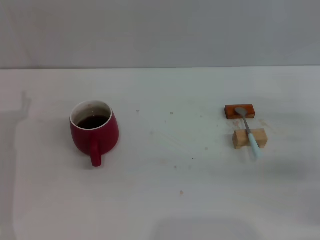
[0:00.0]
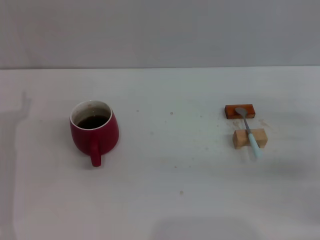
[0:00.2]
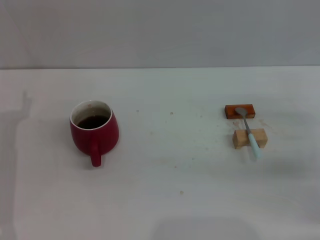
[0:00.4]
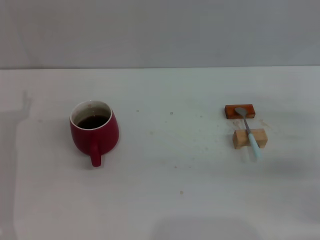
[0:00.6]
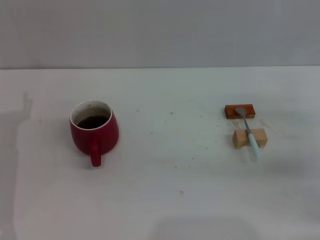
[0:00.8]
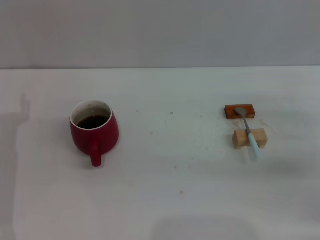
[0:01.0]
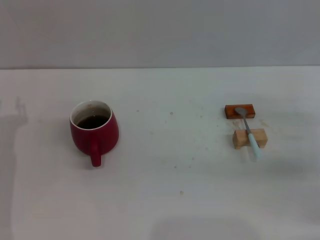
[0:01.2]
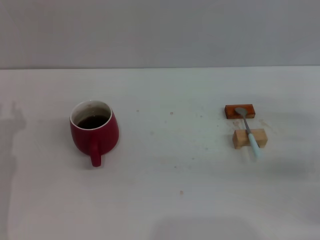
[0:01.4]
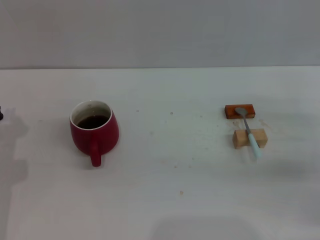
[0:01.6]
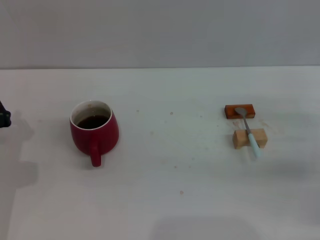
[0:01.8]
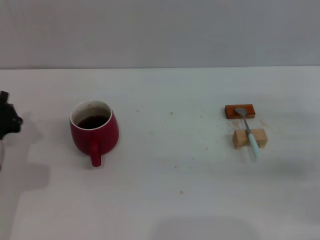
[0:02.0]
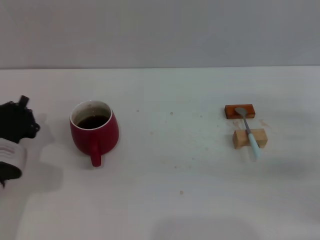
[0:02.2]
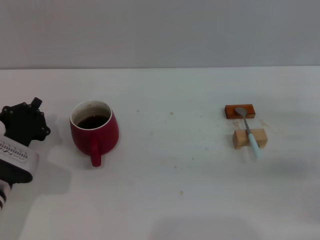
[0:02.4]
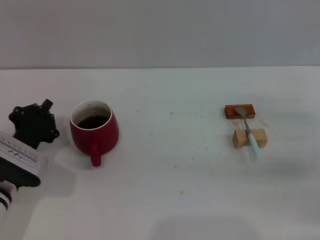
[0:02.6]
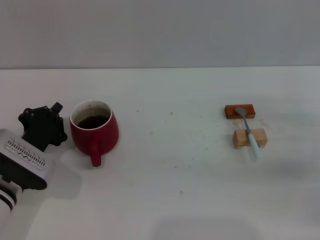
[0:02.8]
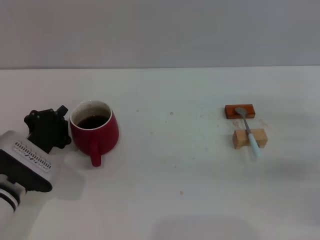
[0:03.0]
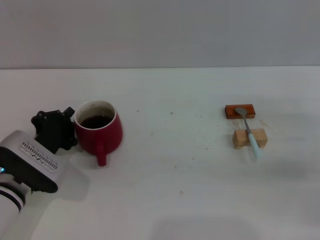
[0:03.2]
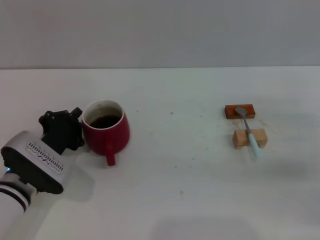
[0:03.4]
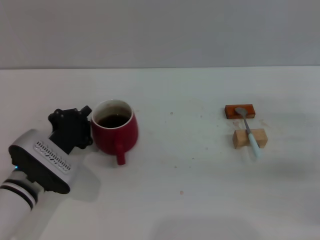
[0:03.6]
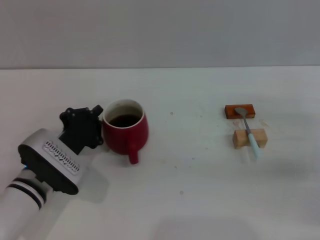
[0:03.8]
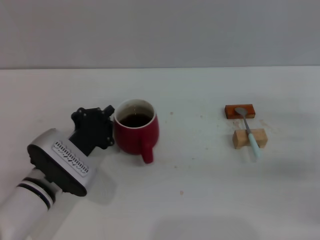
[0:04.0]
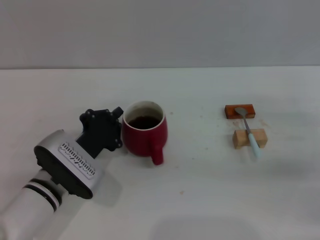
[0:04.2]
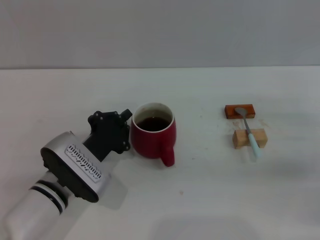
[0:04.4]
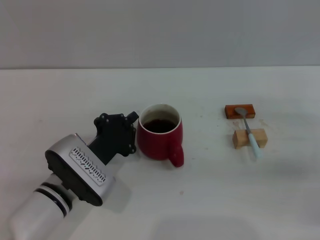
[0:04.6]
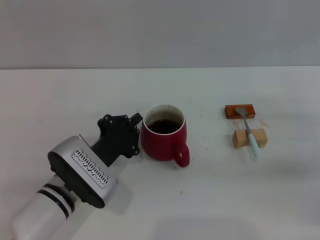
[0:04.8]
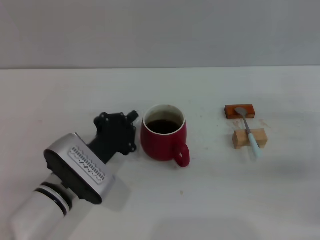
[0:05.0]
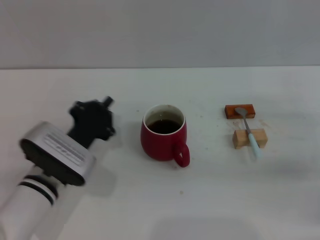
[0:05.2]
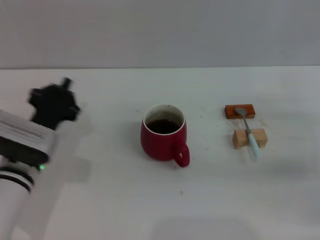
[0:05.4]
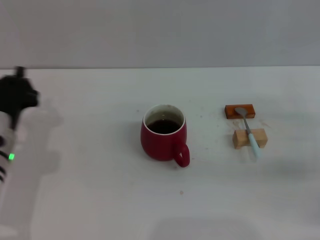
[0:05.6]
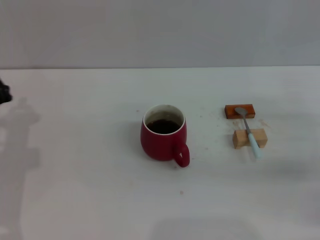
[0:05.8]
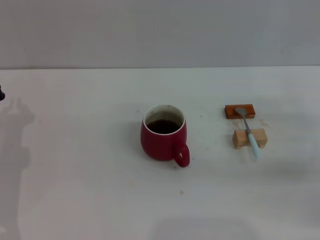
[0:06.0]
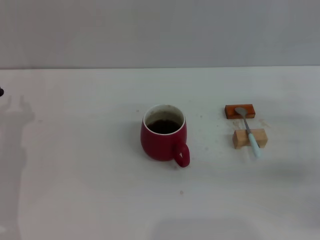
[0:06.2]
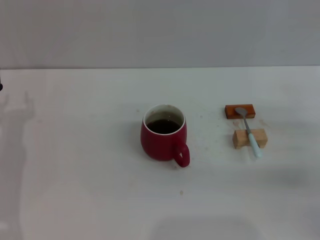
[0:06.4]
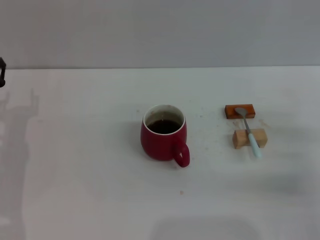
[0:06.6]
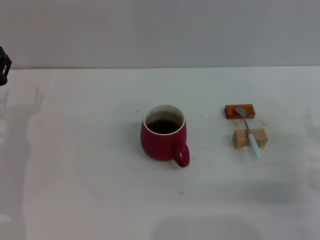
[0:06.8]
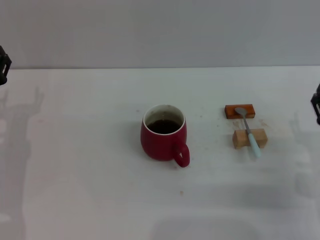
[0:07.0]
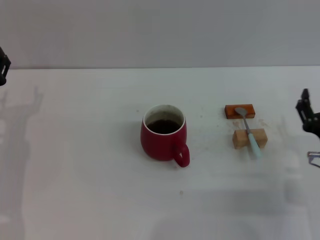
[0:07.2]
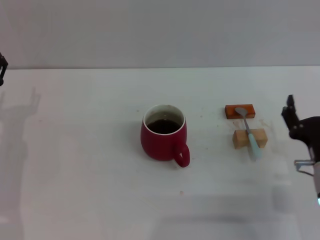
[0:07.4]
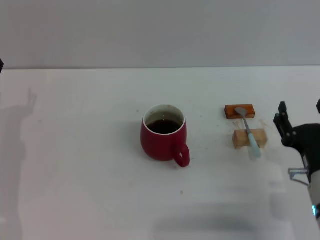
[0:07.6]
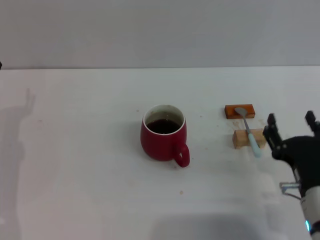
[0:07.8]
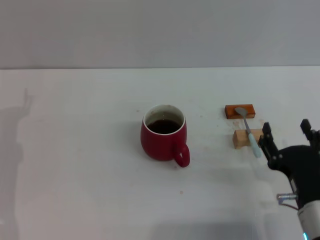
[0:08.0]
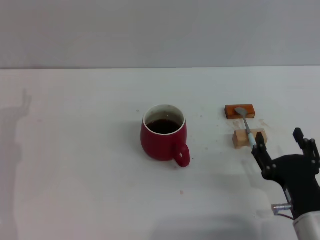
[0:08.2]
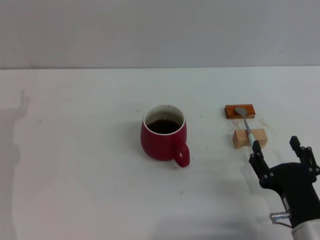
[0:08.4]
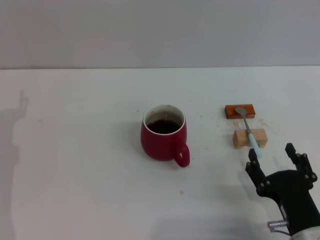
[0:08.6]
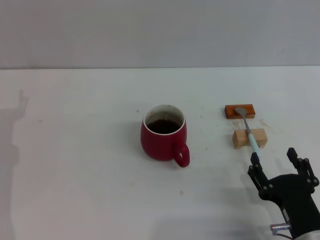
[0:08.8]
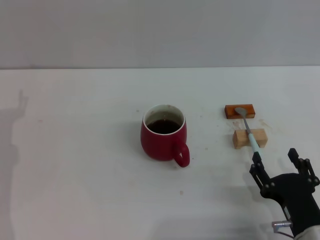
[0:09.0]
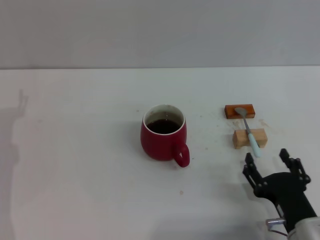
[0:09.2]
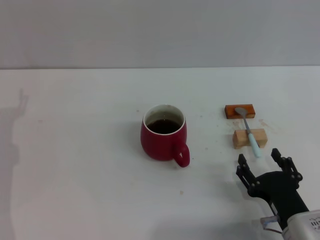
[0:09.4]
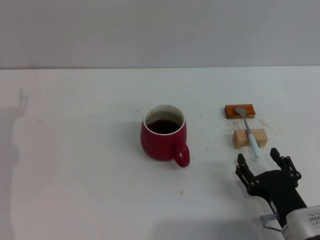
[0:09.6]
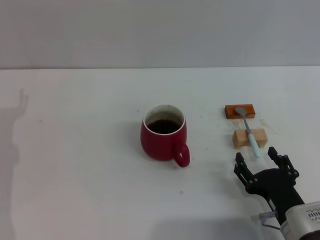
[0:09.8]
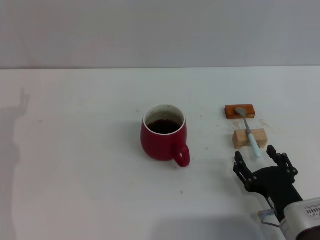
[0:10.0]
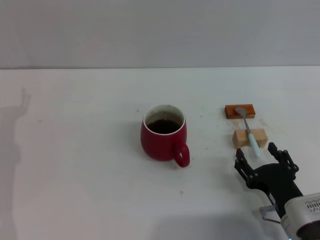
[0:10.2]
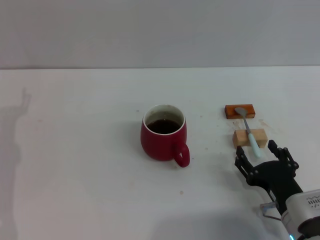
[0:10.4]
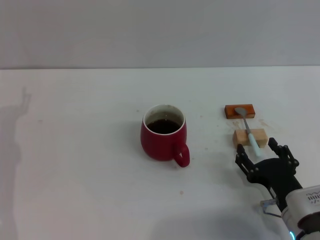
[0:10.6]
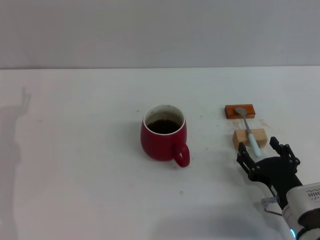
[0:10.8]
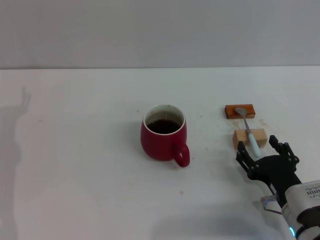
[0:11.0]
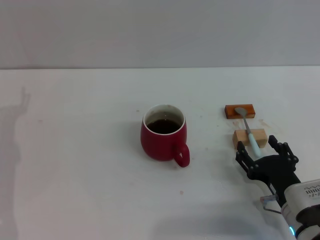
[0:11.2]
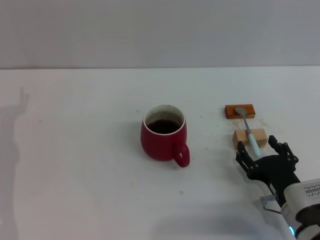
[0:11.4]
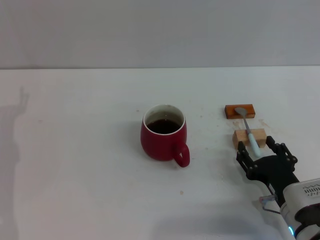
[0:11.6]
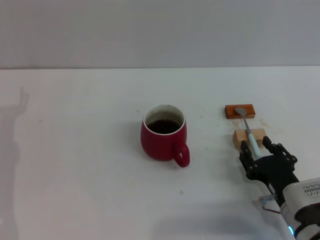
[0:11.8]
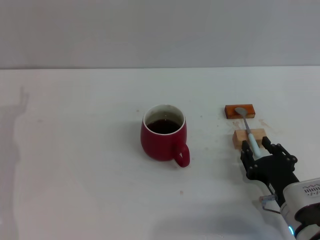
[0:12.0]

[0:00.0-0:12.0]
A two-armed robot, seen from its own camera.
Task of the whole recording: Move the red cup to the center, lift the blue spoon, stir it three times in the cup, and put the spoon into the cup.
Step, 0:00.0 to 0:05.0: Move the cup with coffee to the center of view with the left gripper.
0:01.6 to 0:03.0: The left gripper moves to the right, about 5 cm.
0:03.0 to 0:04.4: The left gripper travels to the right by about 10 cm.
0:04.4 to 0:06.0: The left gripper heads to the left, covering some 15 cm.
0:06.0 to 0:07.6: The right gripper is displaced to the left and backward by about 15 cm.
0:07.6 to 0:09.0: The right gripper goes some 5 cm backward.
0:09.0 to 0:10.4: The grippers move only a little.
0:10.4 to 0:12.0: The right gripper closes its fingers.

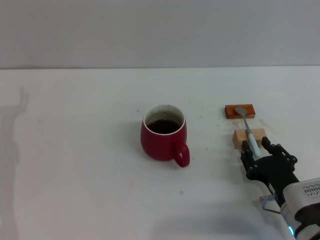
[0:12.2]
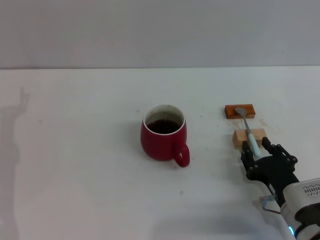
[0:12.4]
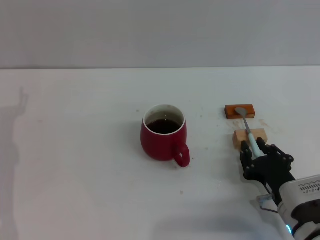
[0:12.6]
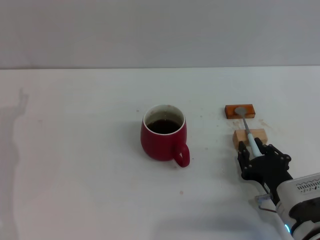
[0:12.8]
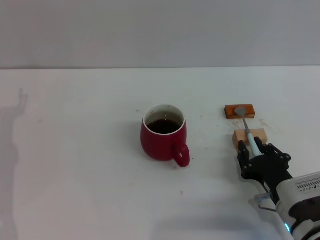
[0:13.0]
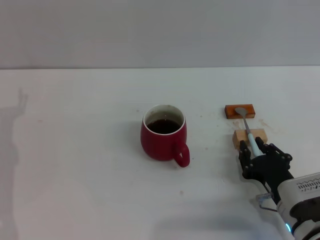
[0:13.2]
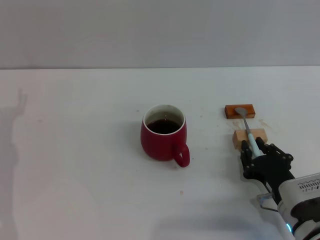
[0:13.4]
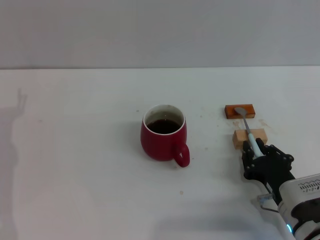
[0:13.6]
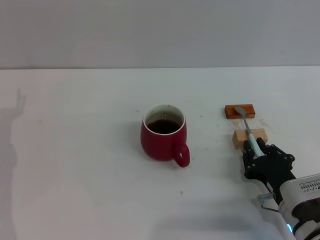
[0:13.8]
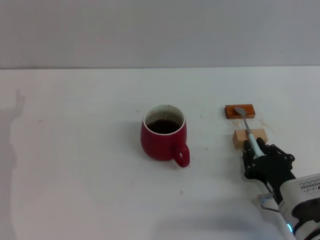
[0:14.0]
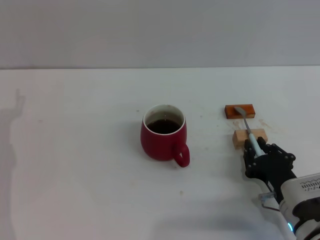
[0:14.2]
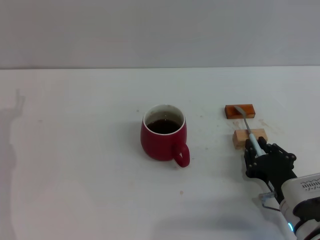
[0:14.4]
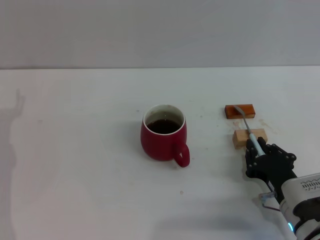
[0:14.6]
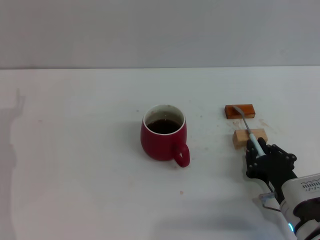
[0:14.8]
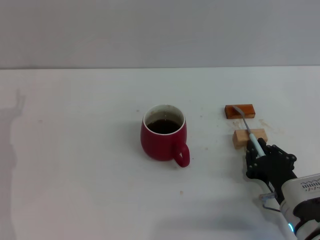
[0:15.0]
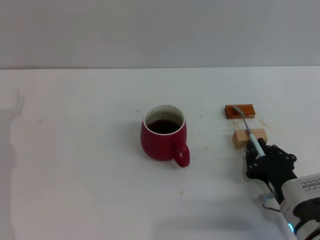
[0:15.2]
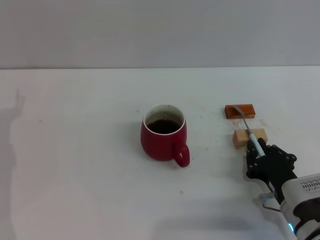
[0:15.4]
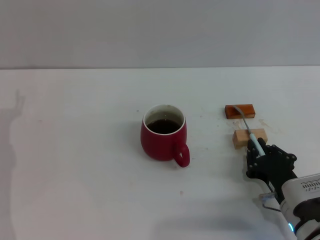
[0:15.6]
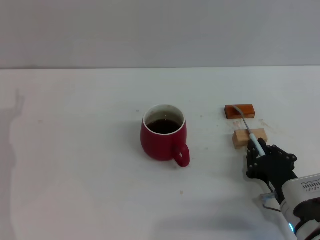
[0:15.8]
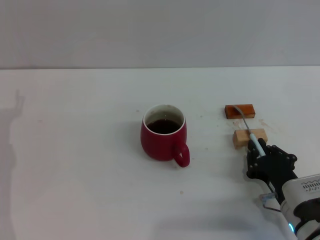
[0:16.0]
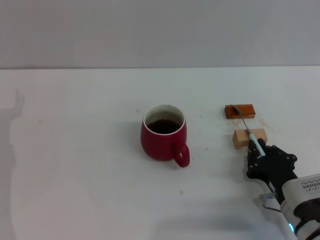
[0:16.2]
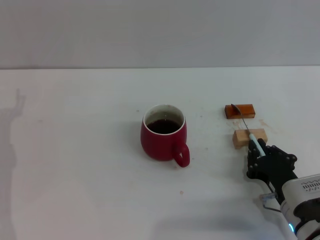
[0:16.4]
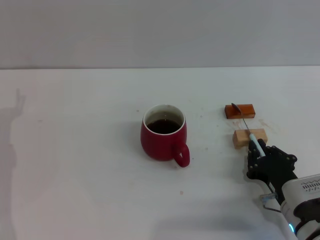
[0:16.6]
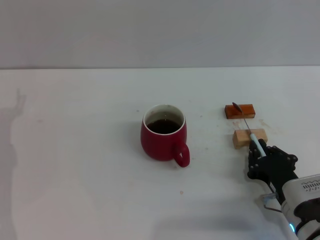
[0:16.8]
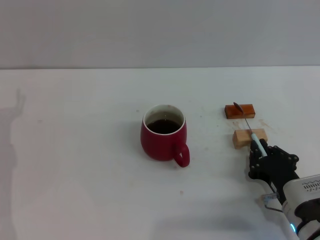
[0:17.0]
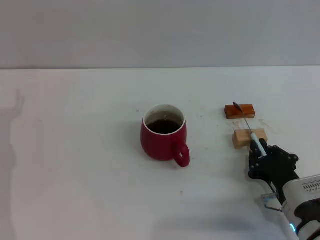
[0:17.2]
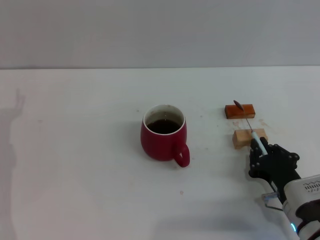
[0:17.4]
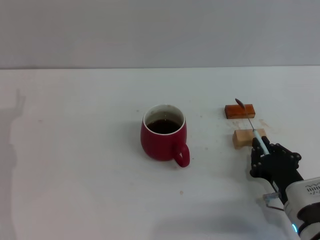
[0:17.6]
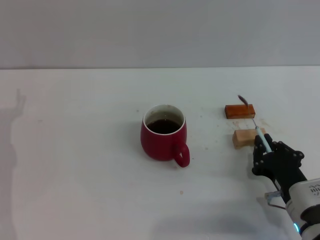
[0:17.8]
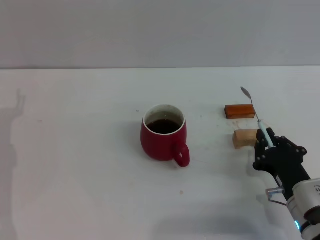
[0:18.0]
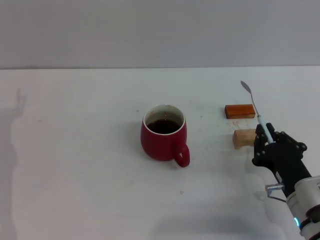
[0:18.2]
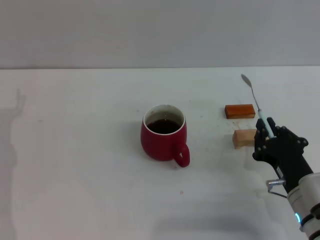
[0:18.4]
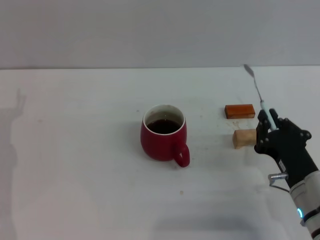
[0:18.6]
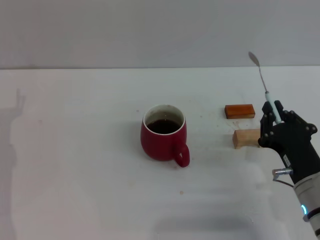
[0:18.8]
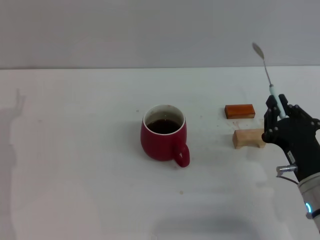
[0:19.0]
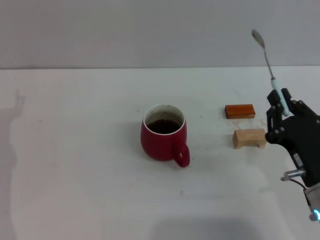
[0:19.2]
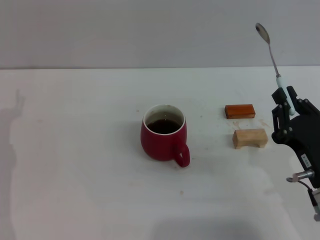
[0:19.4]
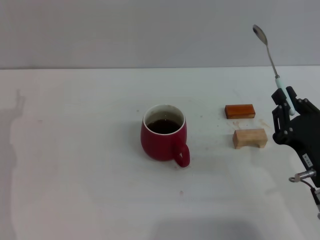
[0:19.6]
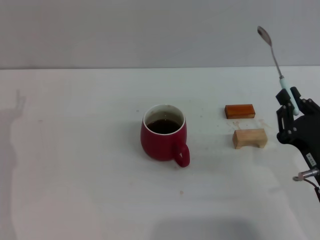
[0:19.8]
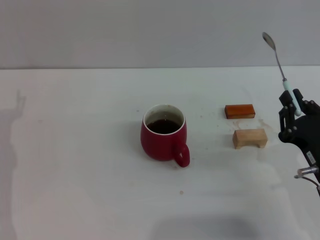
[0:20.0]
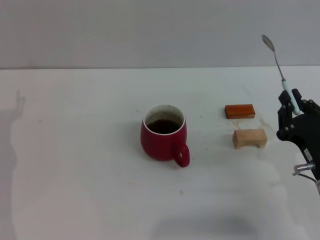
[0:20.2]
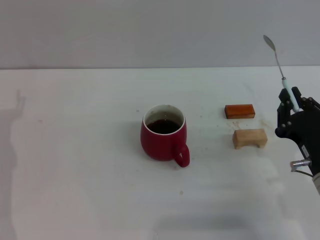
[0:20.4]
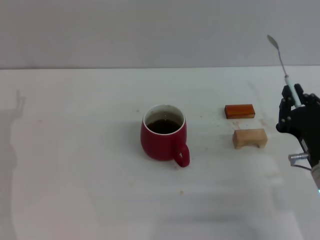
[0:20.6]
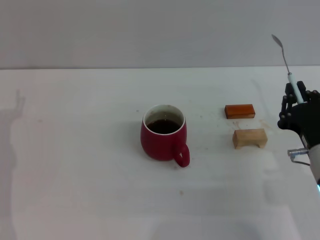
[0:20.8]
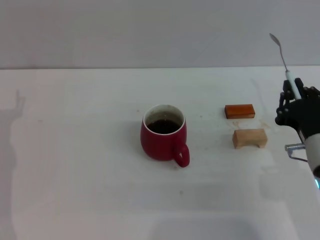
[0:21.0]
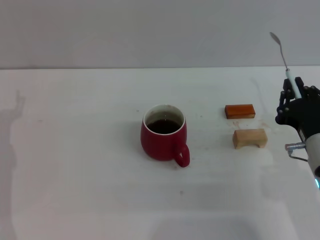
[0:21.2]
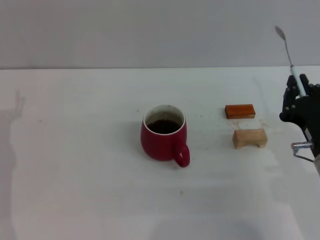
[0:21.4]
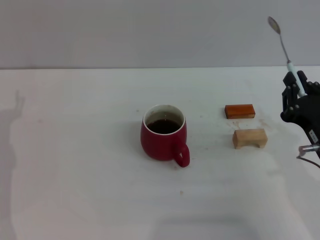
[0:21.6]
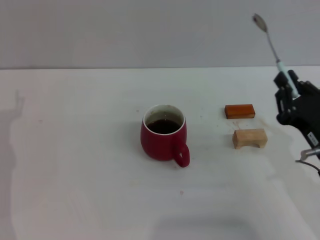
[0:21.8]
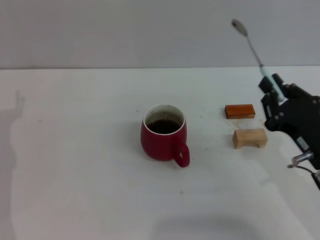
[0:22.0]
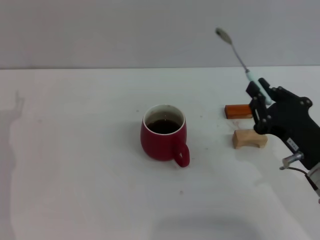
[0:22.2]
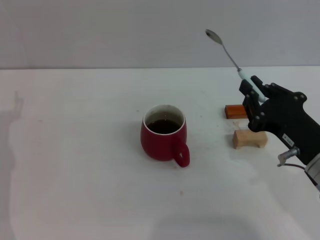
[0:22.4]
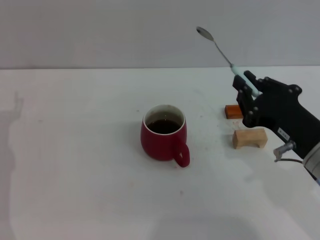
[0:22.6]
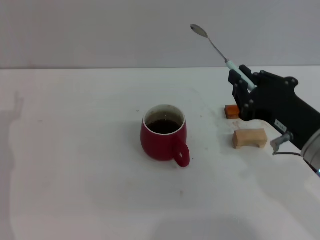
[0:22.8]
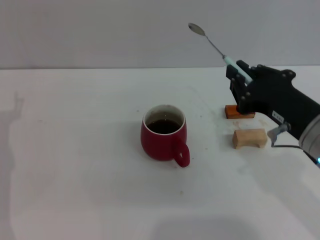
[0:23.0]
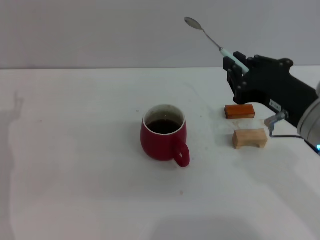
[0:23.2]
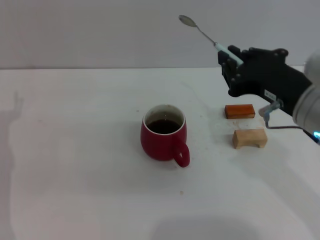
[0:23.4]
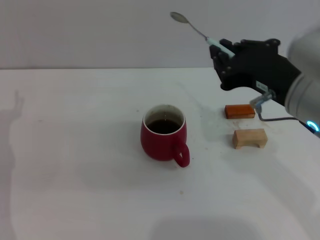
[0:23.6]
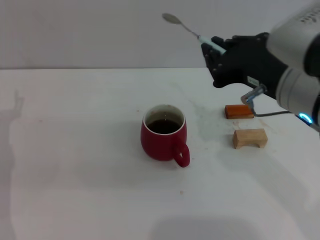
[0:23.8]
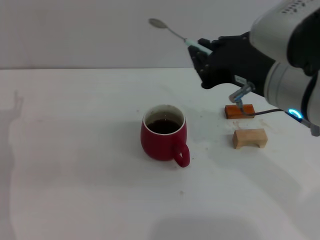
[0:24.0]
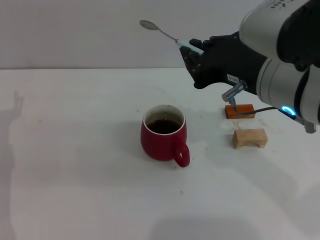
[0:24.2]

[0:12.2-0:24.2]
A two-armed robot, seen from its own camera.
Task of the whole recording: Move the red cup to the center, lift the blue spoon, stir it three times in the cup, and put the spoon into the cup.
Step, 0:12.2 to 0:18.2: Pick up the spoon with the right gripper.
0:12.2 to 0:16.6: The two grippers keep their place.
0:16.6 to 0:18.2: The grippers stay close to where they were, moving slightly.
0:18.2 to 0:19.8: The right gripper ends up some 5 cm from where it was.
0:22.6 to 0:24.2: The right gripper moves upward and to the left, about 15 cm.
